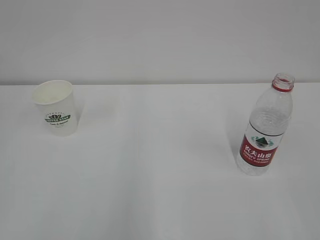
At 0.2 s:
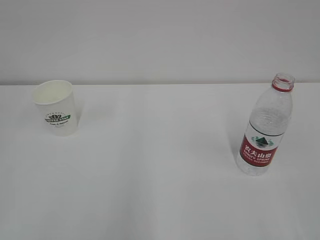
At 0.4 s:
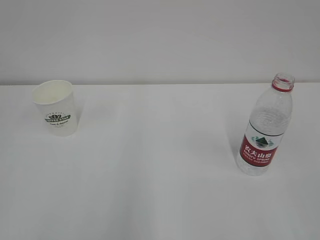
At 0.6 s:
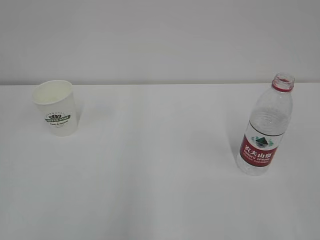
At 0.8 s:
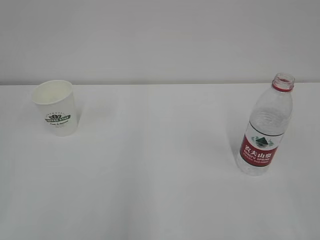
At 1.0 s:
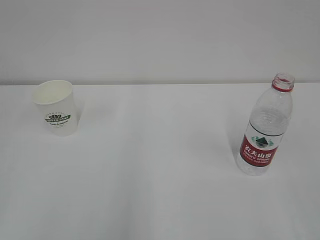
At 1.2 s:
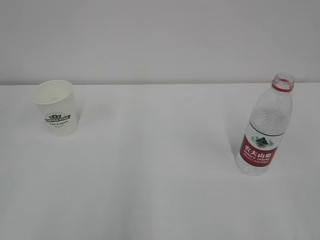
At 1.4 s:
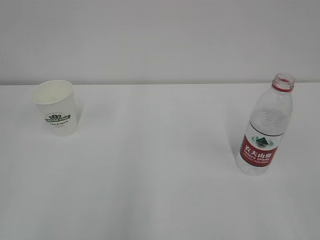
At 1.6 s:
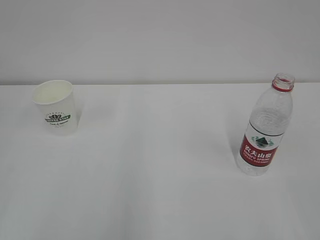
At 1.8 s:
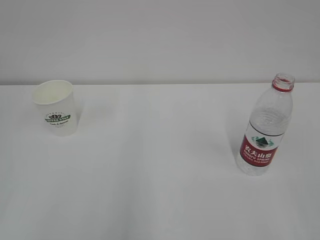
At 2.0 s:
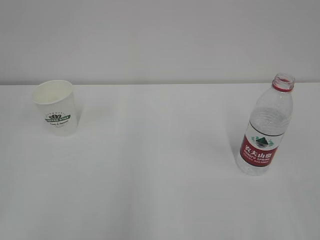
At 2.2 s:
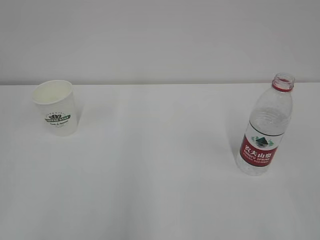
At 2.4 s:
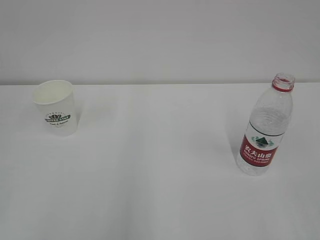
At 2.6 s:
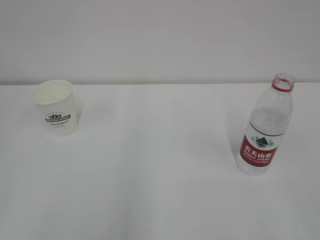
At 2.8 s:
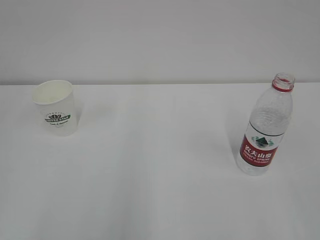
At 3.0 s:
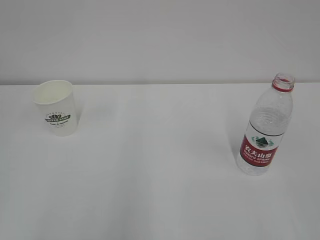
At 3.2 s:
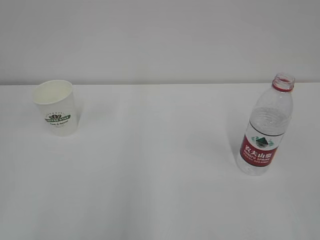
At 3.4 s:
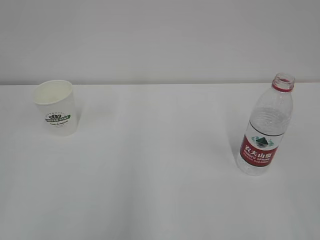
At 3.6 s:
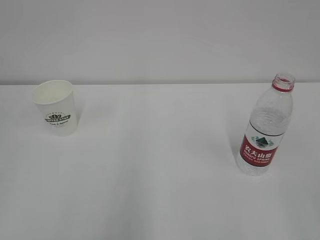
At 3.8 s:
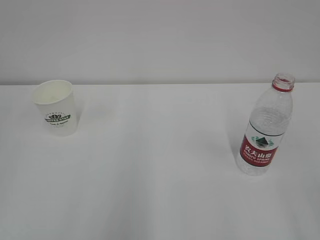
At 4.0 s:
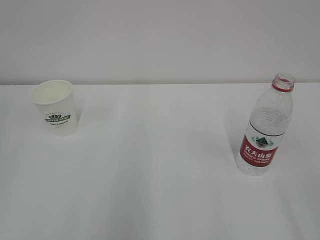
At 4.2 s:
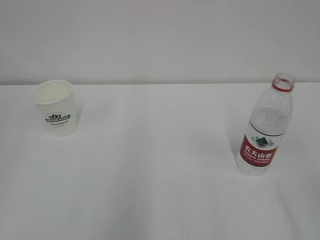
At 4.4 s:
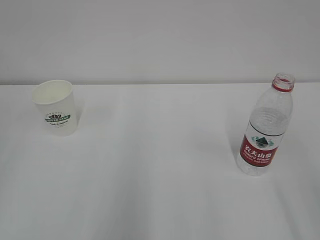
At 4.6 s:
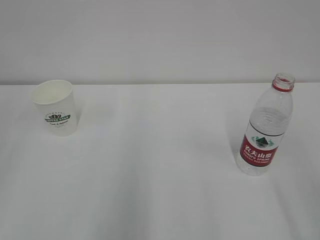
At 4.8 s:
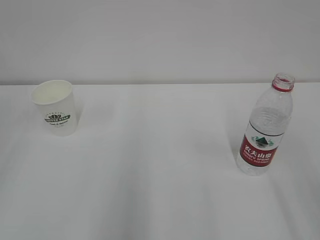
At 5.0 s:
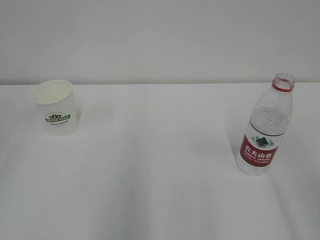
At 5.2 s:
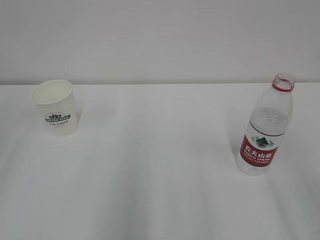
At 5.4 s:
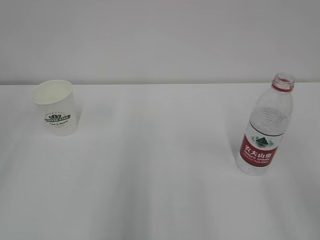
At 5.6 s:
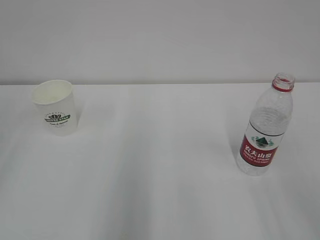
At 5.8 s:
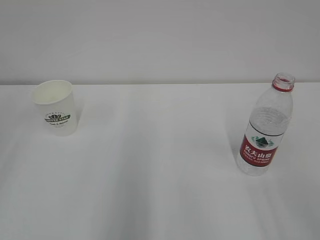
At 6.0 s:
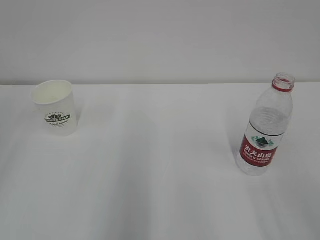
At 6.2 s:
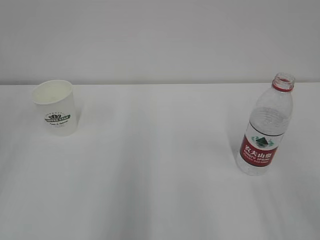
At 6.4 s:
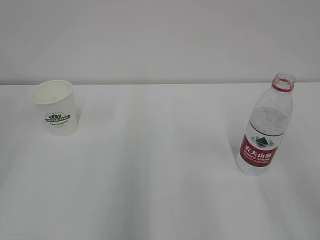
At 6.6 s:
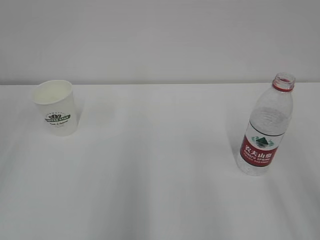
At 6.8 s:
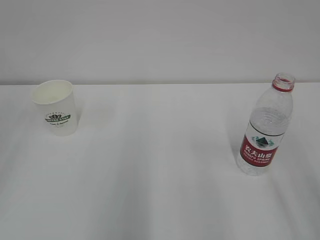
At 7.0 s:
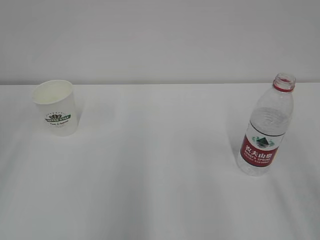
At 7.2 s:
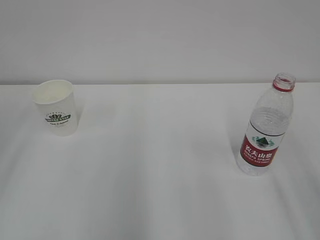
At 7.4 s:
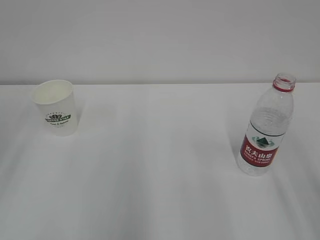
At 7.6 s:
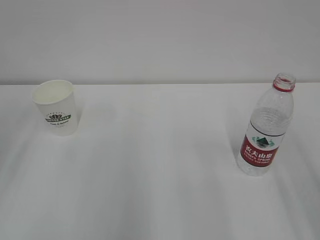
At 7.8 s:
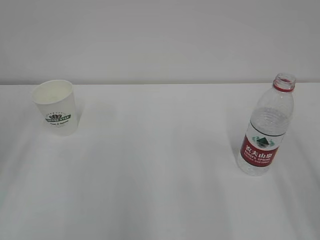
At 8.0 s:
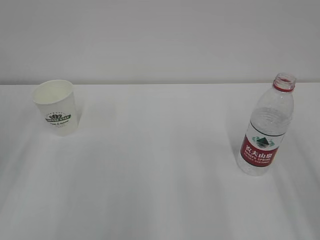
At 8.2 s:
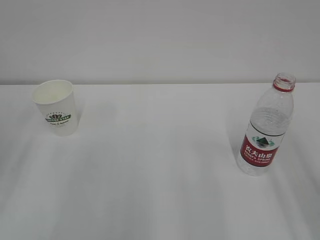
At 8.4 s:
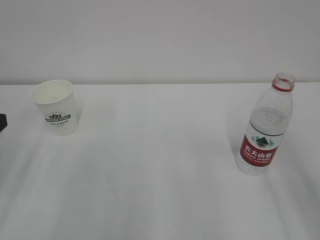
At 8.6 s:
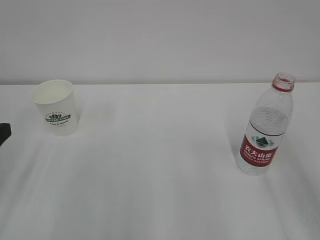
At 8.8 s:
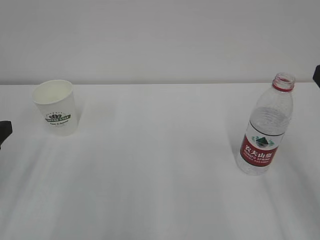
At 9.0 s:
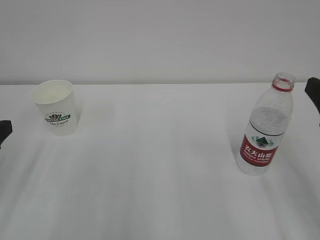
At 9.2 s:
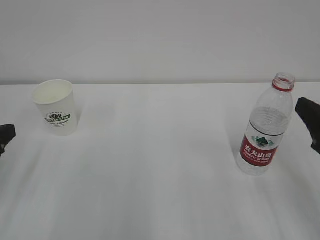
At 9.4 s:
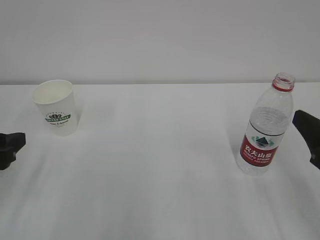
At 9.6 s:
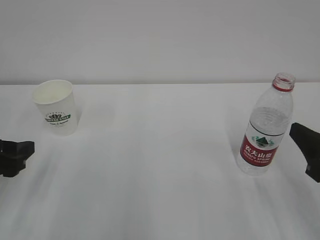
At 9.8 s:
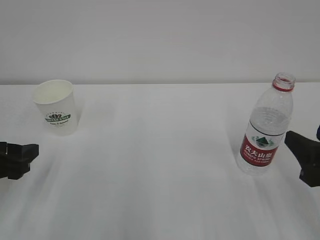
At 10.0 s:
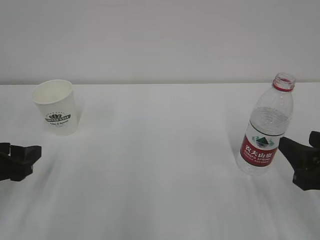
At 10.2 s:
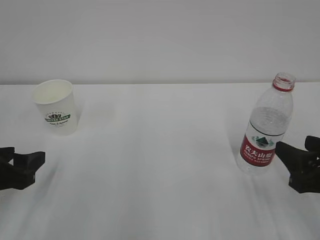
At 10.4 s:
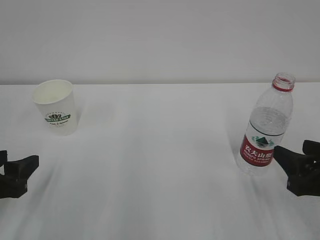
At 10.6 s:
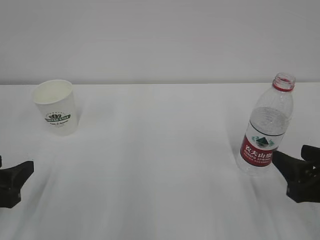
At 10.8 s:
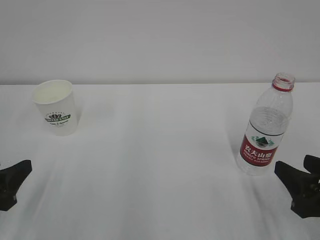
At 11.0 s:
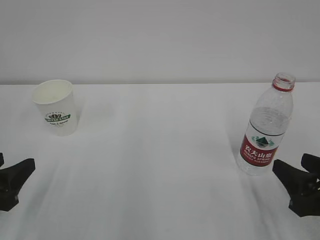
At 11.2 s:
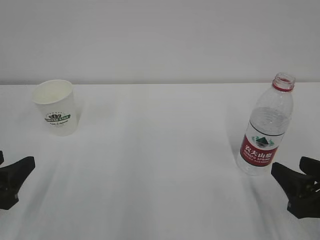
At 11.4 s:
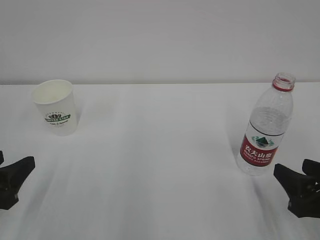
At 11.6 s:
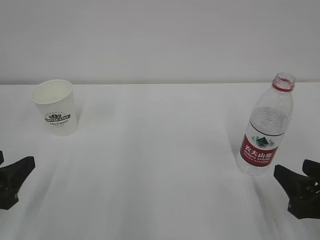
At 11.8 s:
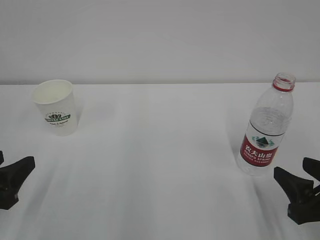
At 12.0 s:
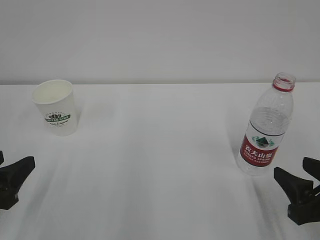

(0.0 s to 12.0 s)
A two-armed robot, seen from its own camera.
1.6 s - 3.0 s: The two grippers keep their place.
9.0 s - 10.4 s: The two grippers go roughly 5 cm downward. The right gripper closes its fingers.
10.4 s - 12.0 s: The grippers move only a little.

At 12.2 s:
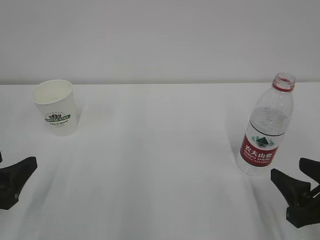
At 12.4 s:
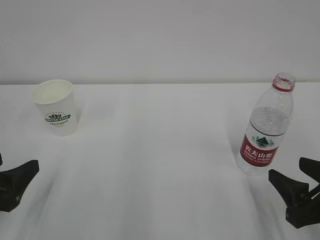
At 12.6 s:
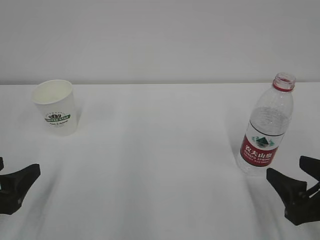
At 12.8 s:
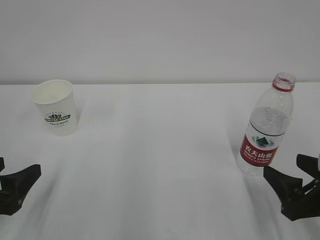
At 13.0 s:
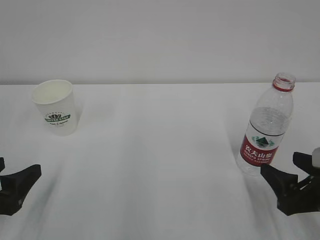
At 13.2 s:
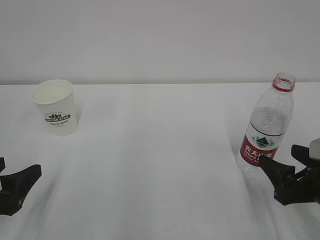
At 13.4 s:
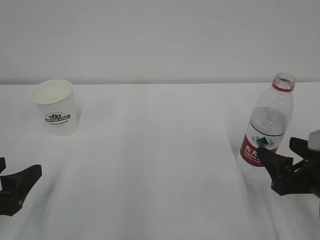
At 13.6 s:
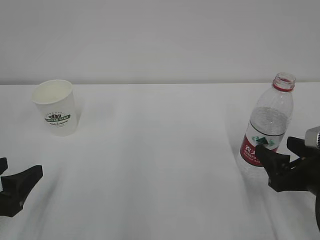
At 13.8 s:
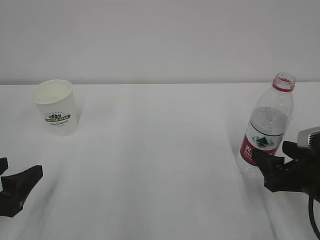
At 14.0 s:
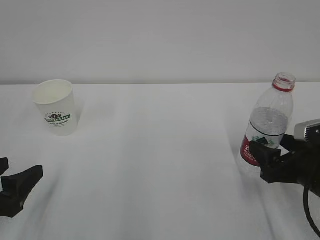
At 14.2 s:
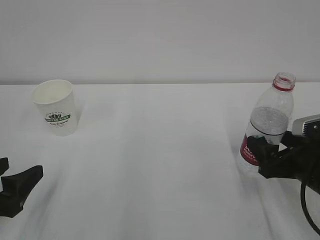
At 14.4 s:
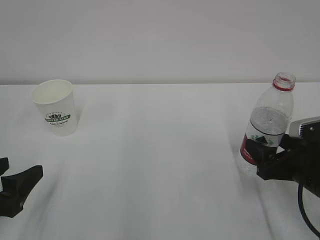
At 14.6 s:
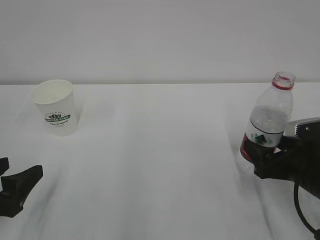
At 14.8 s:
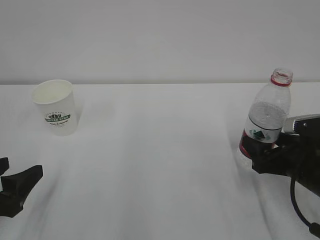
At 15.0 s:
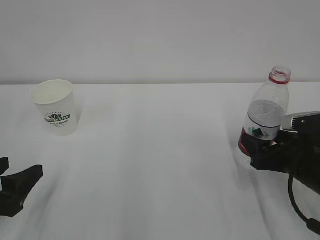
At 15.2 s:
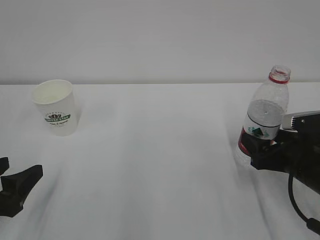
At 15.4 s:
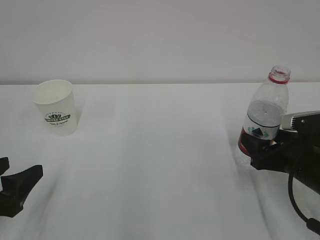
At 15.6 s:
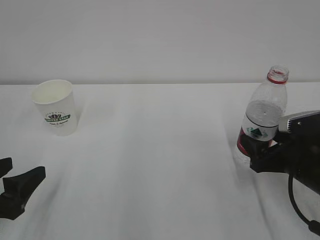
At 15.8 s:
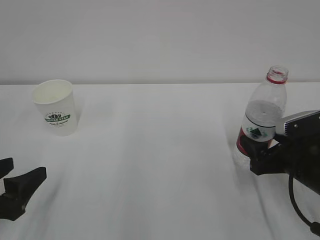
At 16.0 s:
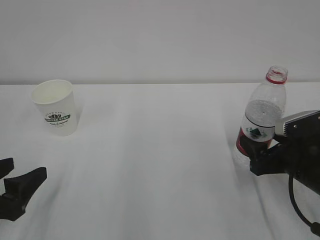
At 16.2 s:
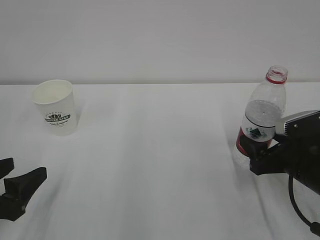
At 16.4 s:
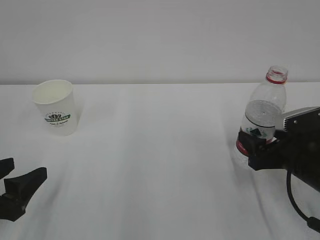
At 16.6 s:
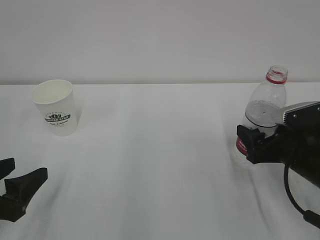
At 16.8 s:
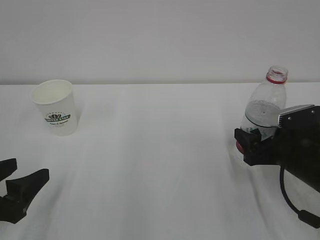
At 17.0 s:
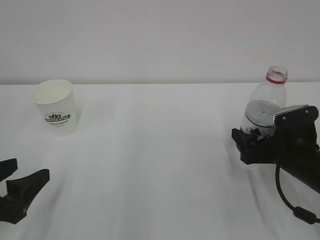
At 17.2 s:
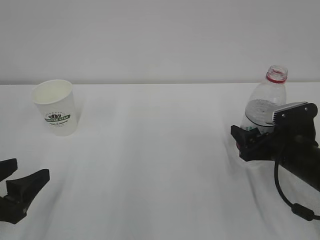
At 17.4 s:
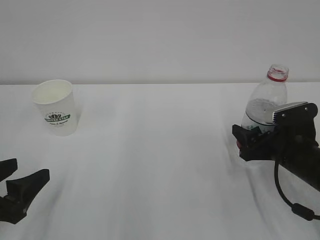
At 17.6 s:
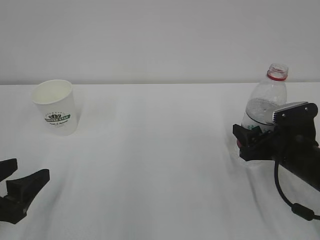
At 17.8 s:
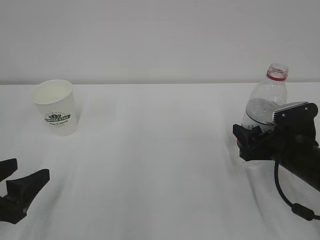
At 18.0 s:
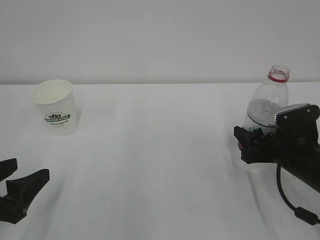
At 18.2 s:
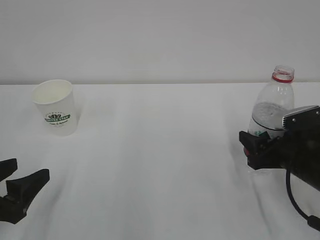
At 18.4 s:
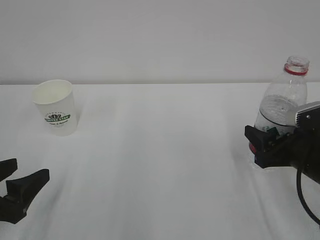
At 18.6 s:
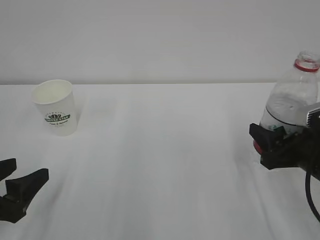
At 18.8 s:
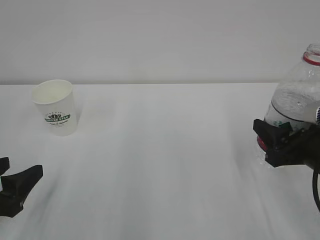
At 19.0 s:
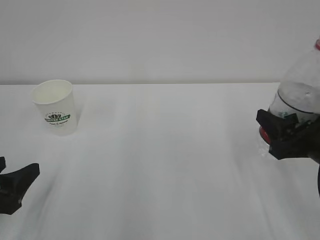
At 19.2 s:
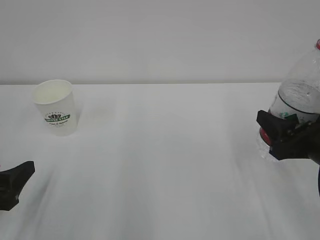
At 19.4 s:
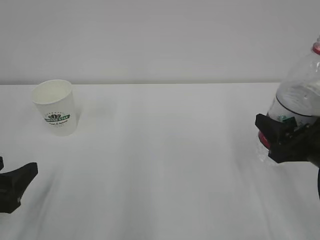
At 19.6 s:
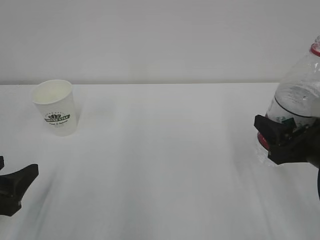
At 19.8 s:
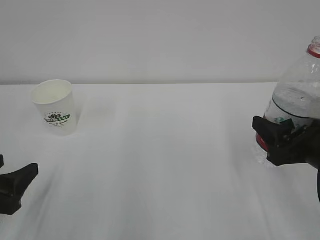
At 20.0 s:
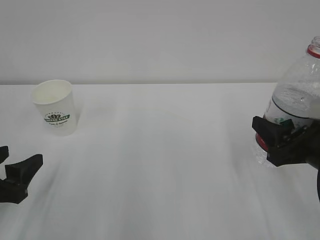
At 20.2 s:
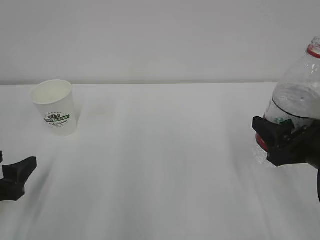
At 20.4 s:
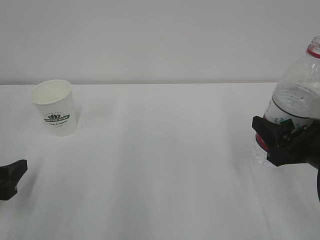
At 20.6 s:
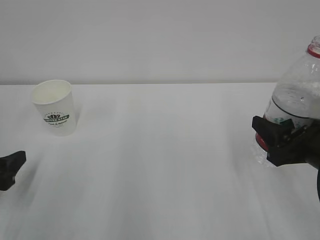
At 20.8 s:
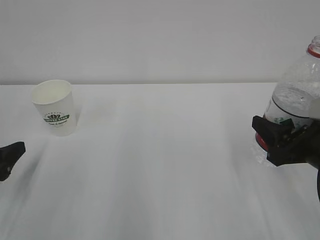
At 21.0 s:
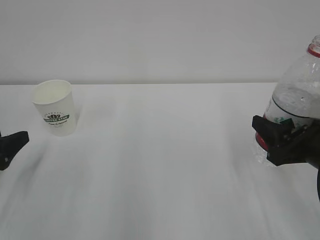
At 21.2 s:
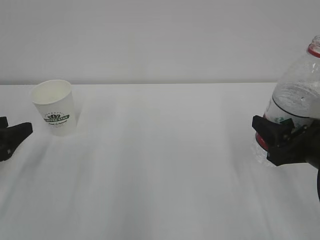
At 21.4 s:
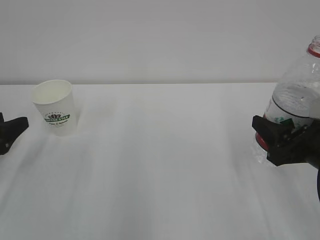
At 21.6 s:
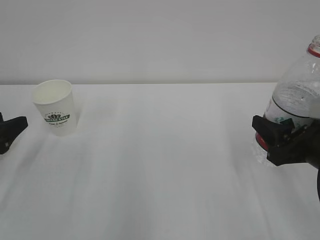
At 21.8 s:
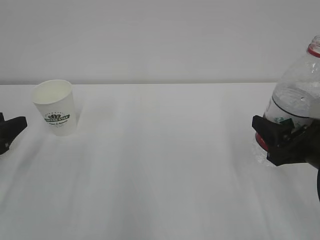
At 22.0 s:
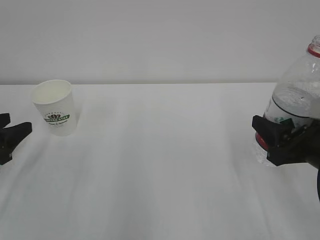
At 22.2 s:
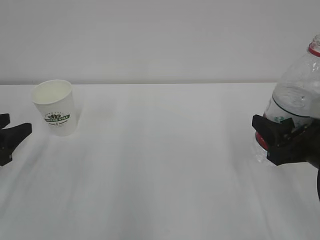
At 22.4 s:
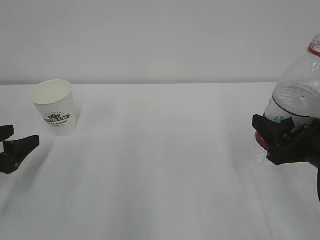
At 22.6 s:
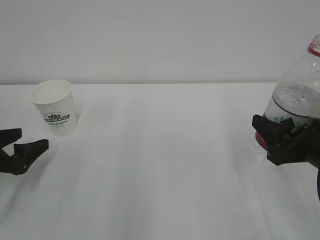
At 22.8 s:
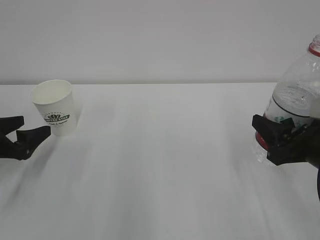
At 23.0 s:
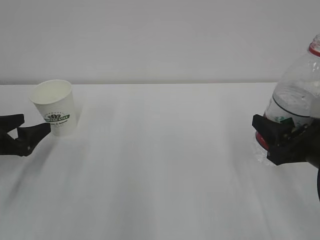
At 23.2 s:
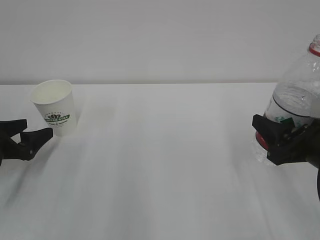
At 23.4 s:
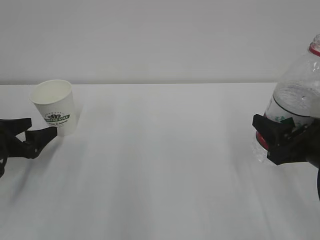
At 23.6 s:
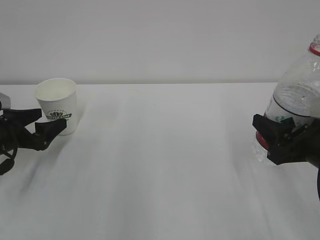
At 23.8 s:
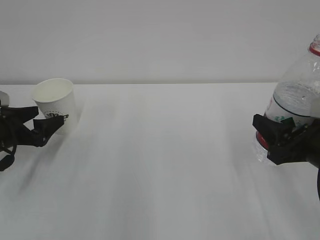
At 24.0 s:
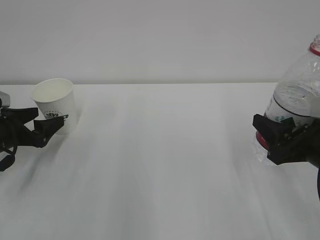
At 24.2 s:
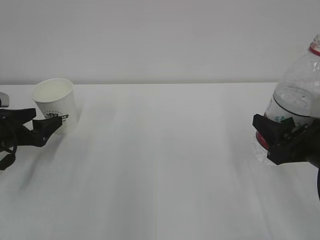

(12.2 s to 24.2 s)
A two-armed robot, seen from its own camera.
12.2 s - 13.8 s: The right gripper goes about 5 cm forward, and opens.
13.8 s - 16.6 s: The grippers stay close to where they were, moving slightly.
16.6 s - 18.2 s: The right gripper closes up.
18.2 s - 19.8 s: The right gripper travels upward by about 5 cm.
19.8 s - 21.2 s: The left gripper is displaced forward and to the left by roughly 10 cm.
21.2 s - 22.6 s: The left gripper opens.
22.6 s - 24.2 s: The left gripper goes roughly 5 cm forward.
